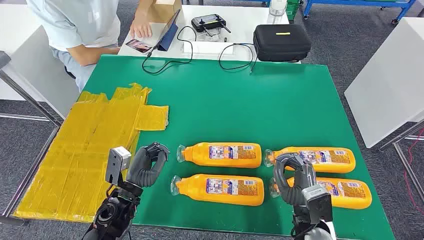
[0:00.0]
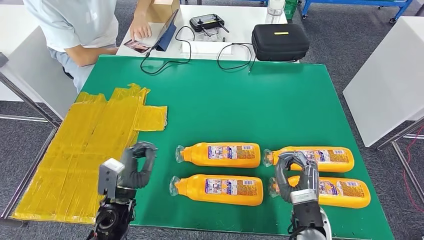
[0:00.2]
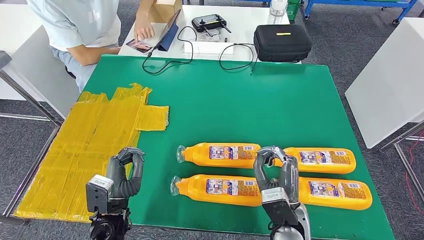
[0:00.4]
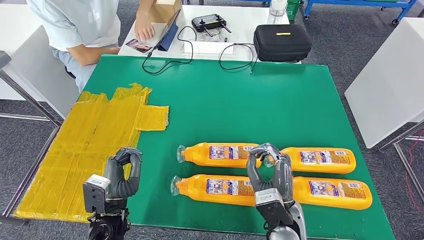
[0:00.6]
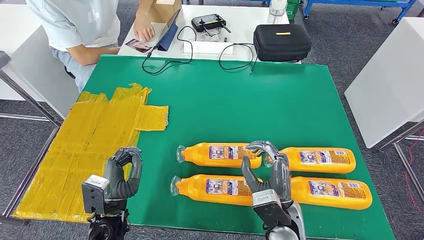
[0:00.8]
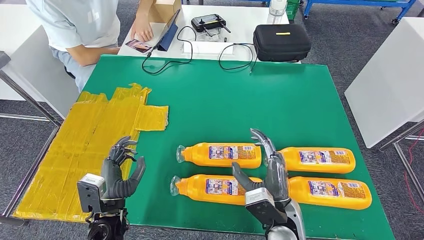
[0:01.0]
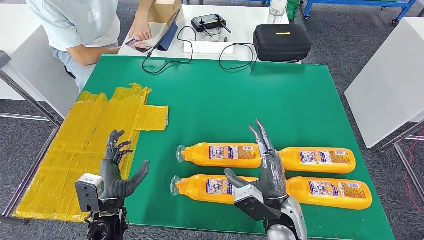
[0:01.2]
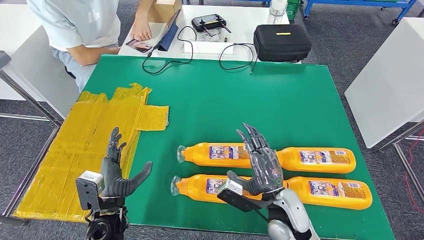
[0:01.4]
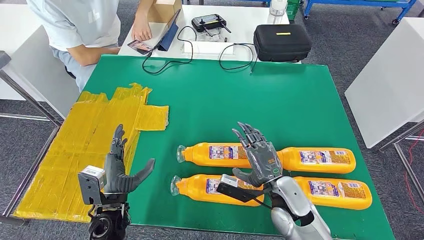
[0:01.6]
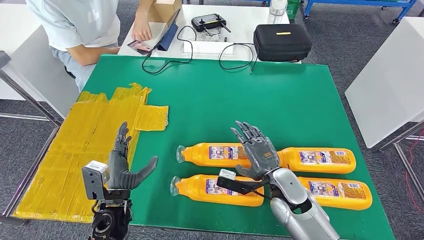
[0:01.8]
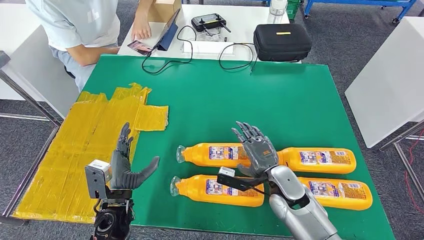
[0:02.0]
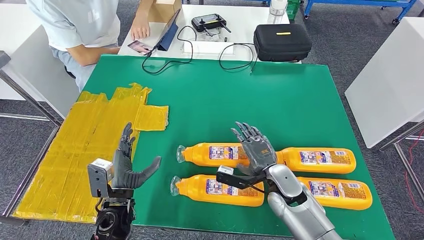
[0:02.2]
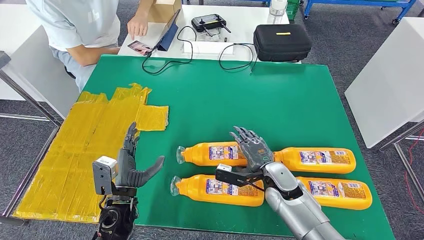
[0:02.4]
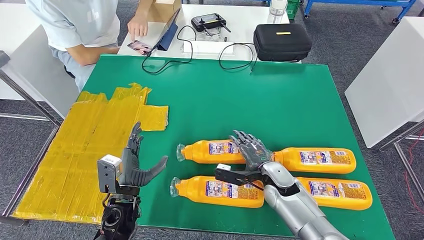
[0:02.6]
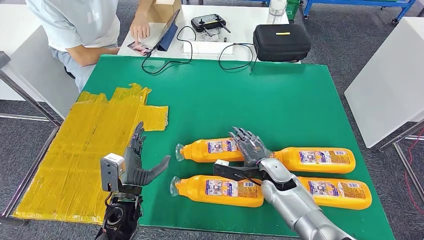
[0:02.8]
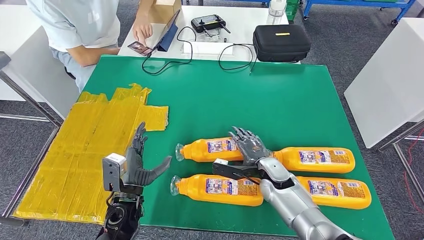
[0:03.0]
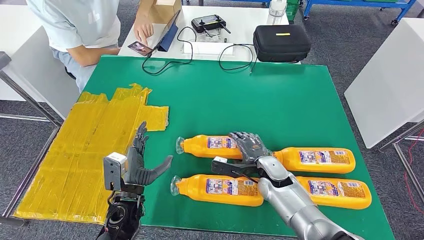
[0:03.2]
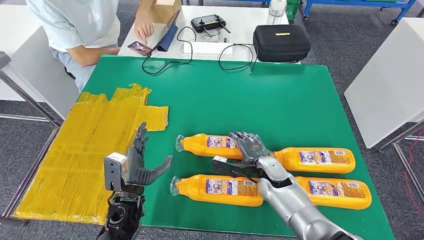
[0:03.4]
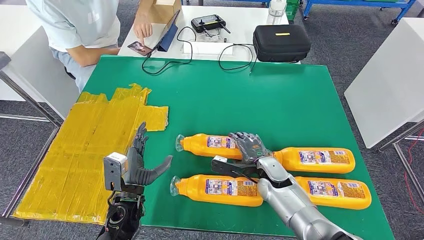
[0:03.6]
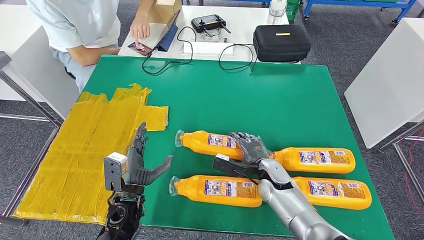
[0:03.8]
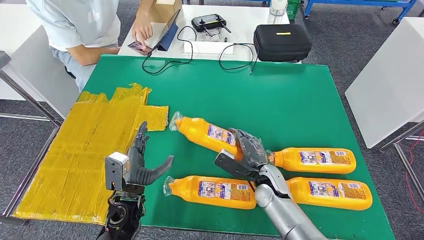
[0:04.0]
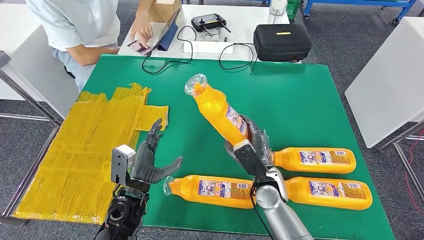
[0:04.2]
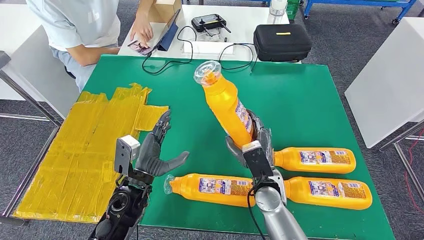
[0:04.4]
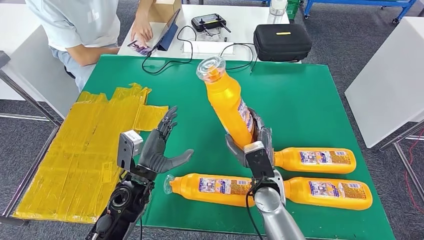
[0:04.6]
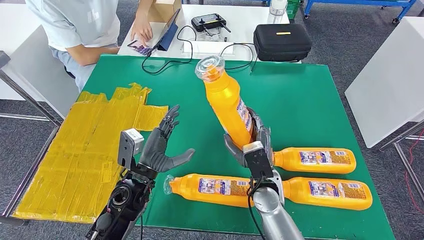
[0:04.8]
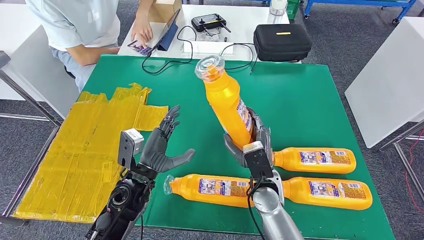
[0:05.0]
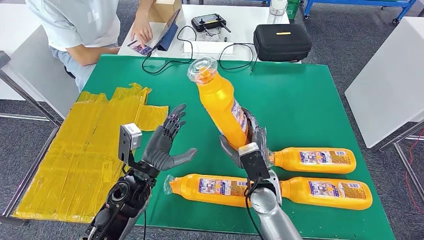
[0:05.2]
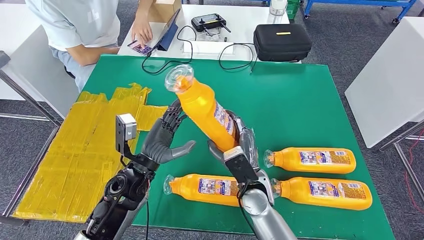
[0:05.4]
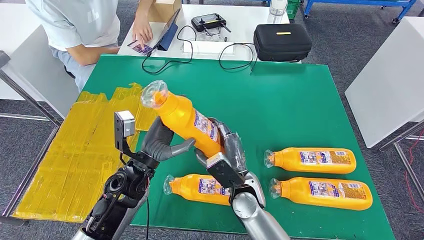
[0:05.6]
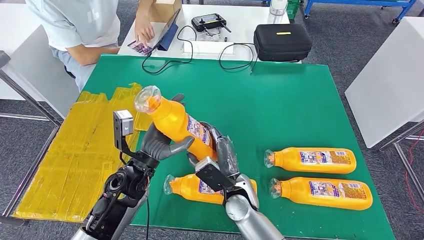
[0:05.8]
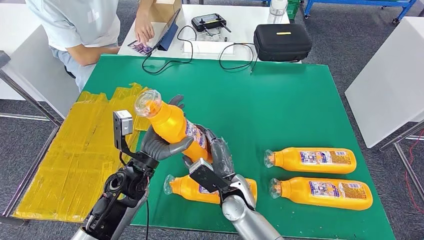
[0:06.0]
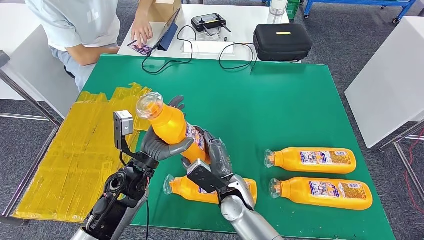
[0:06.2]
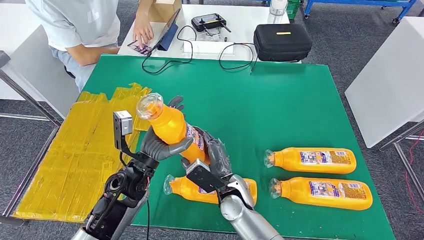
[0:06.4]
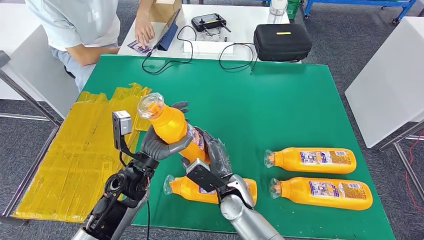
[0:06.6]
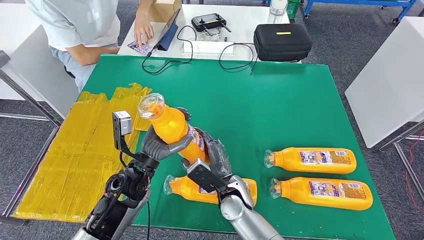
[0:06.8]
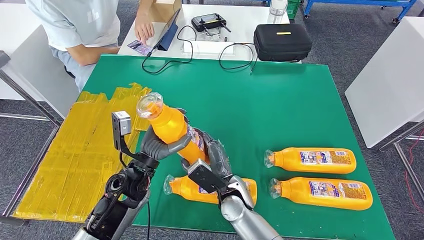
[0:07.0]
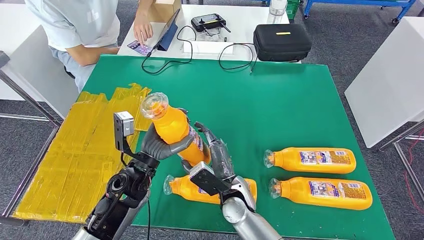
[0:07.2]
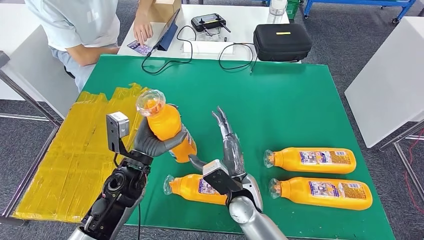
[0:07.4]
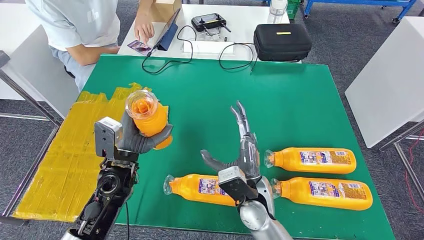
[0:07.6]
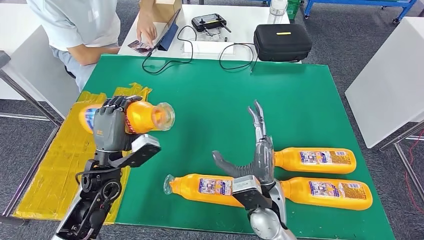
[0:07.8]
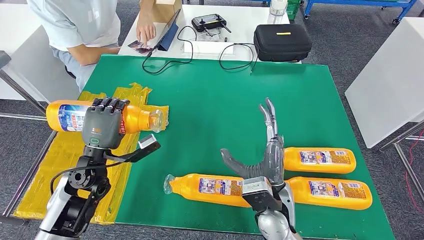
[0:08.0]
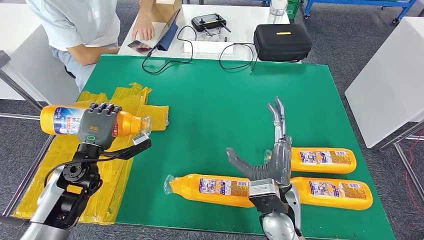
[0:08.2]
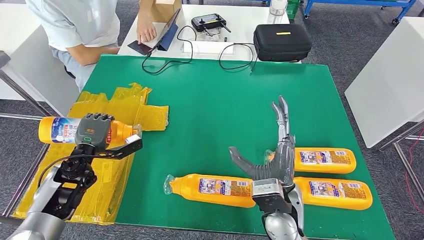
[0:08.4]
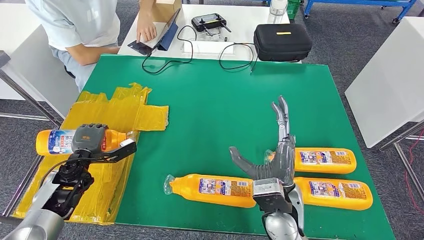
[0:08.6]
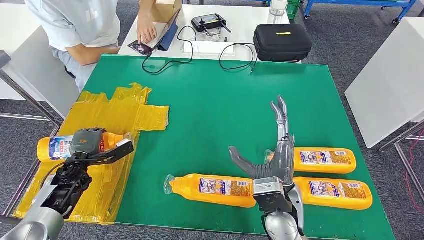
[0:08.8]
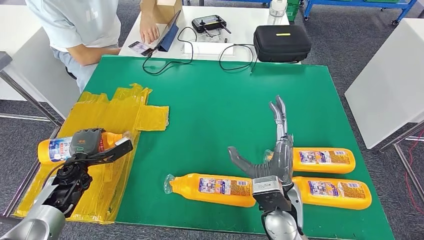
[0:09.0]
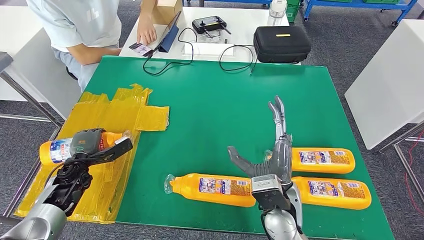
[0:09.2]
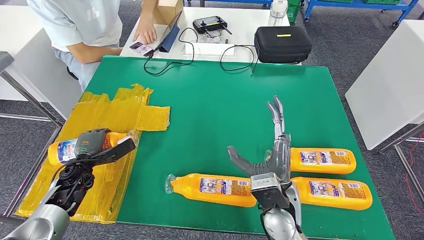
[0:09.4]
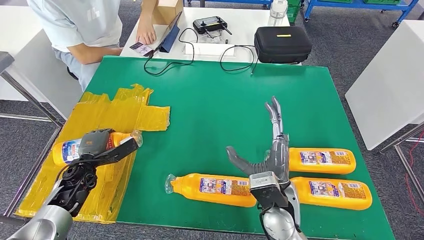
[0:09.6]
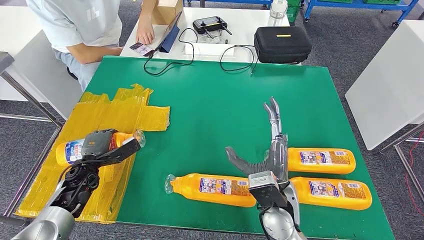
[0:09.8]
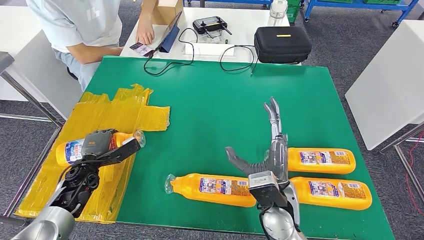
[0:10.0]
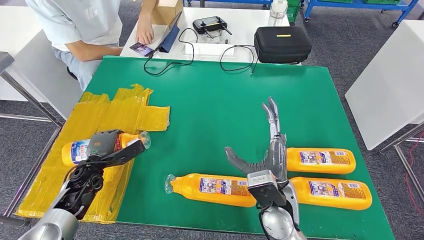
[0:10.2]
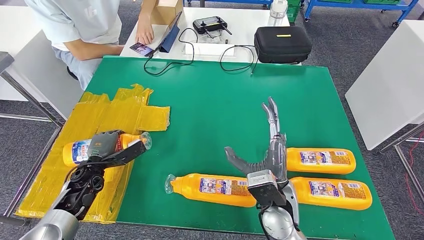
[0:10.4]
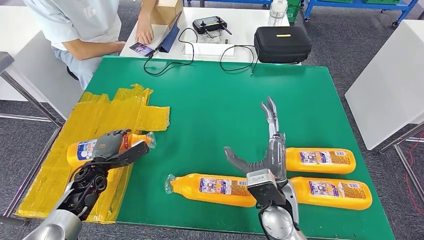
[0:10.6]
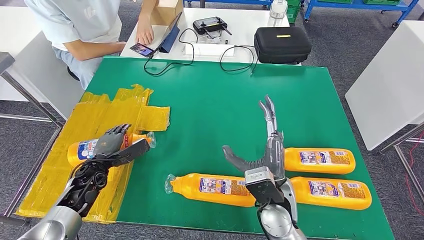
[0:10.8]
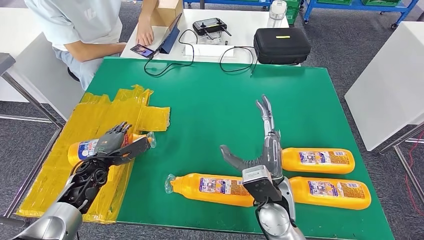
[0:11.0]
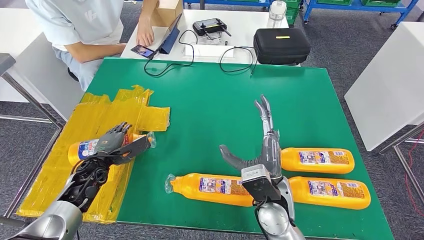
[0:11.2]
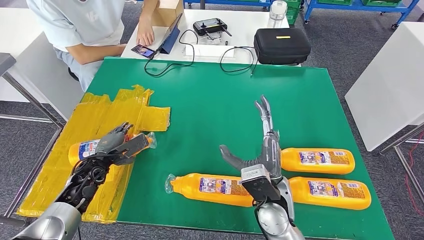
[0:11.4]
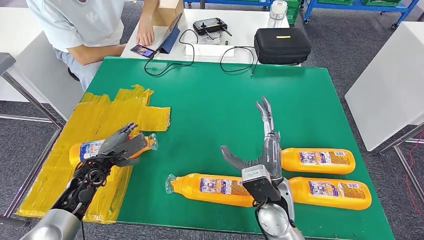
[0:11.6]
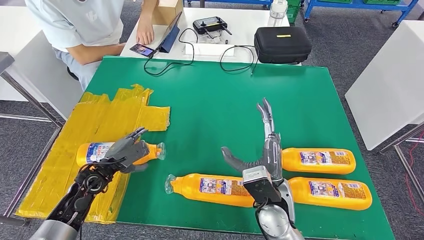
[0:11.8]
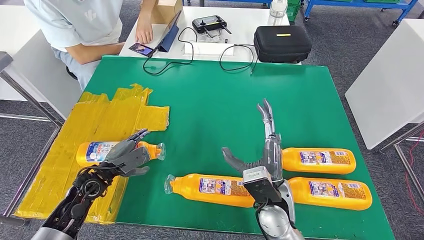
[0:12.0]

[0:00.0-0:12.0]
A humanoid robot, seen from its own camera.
Step, 0.0 to 5.8 s: Take the fast-moving consumer goods bottle from the table.
Step, 6.0 to 9.0 s: Flip the fast-moving consumer goods bottle to the front side.
1.6 to 3.0 s: The right hand goes approximately 10 cm forward and downward.
3.0 to 4.4 s: The right hand changes place by some 10 cm. Meanwhile the left hand changes place by about 5 cm.
4.4 to 6.0 s: The right hand shifts roughly 10 cm to the left.
6.0 to 7.6 s: The right hand changes place by some 5 cm.
9.0 to 10.4 s: The left hand shifts by roughly 5 cm.

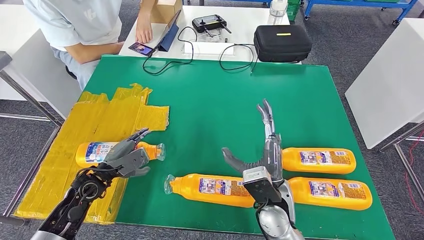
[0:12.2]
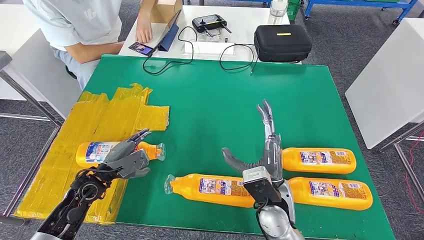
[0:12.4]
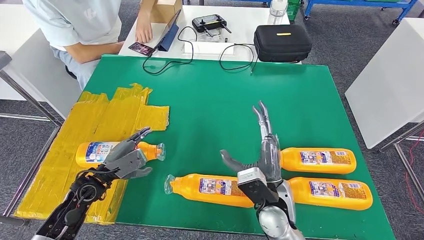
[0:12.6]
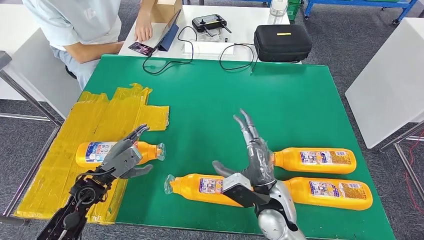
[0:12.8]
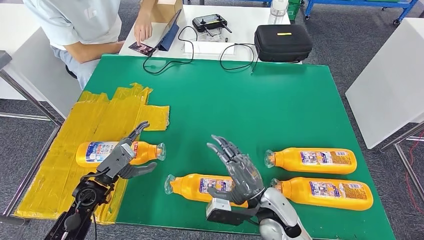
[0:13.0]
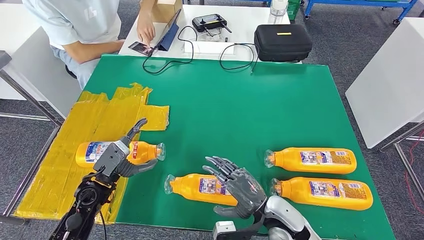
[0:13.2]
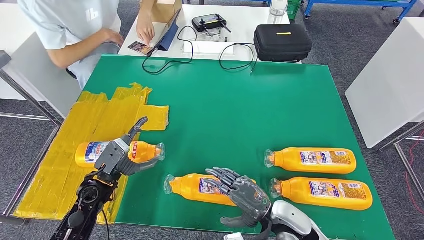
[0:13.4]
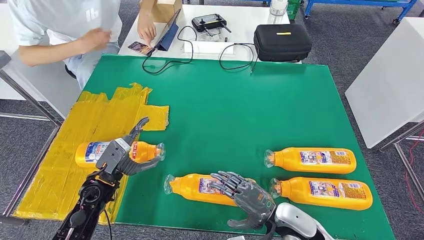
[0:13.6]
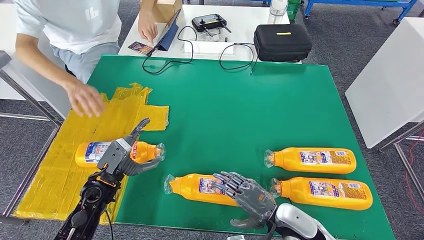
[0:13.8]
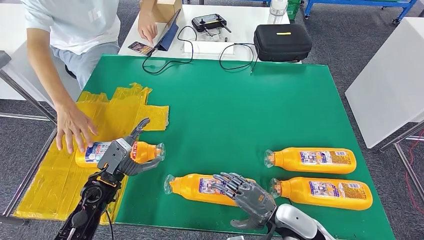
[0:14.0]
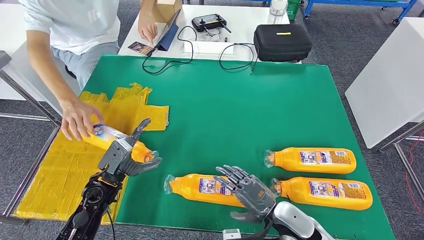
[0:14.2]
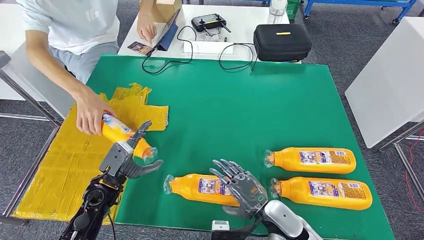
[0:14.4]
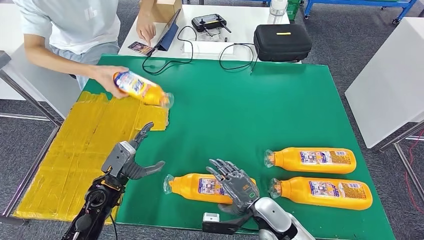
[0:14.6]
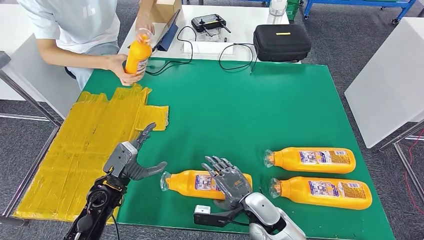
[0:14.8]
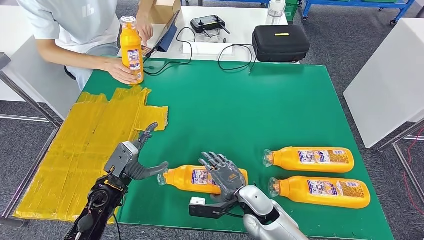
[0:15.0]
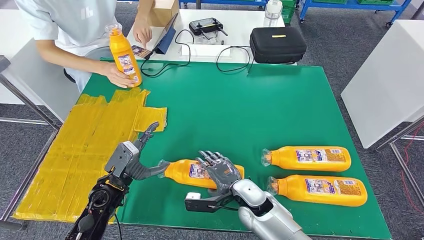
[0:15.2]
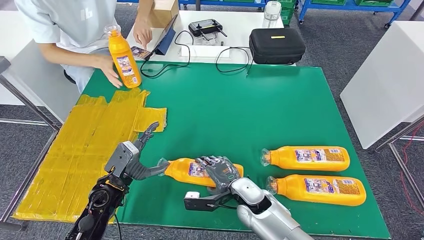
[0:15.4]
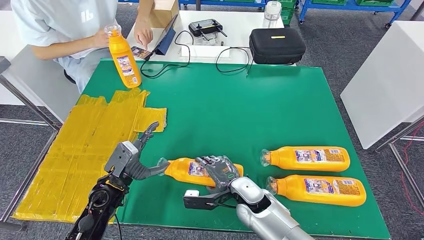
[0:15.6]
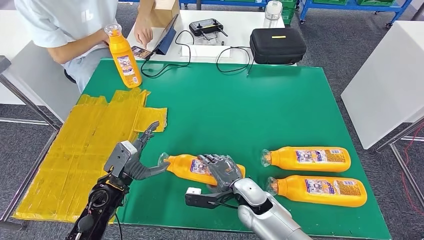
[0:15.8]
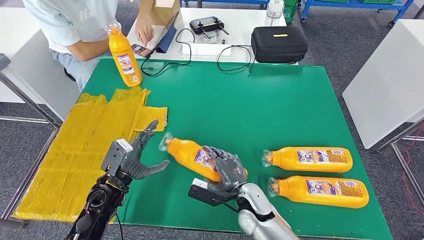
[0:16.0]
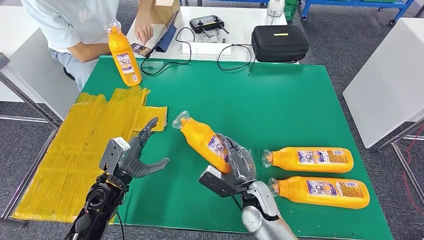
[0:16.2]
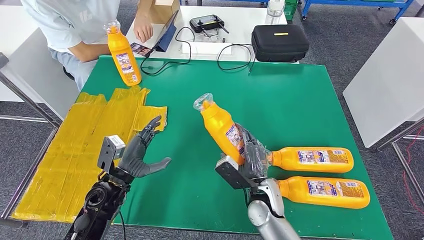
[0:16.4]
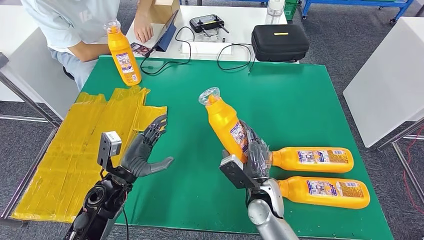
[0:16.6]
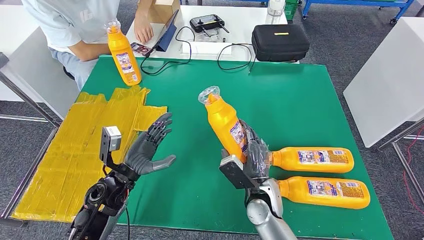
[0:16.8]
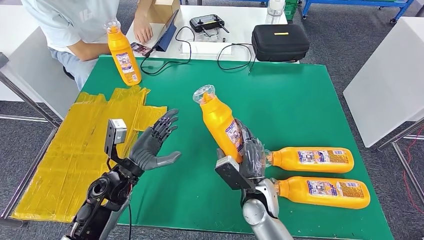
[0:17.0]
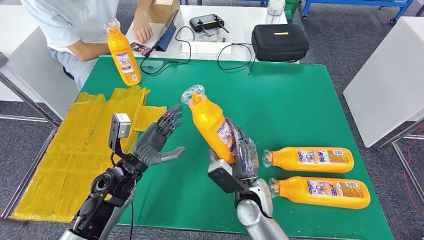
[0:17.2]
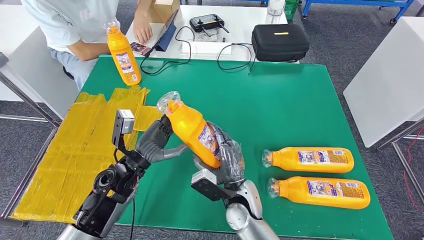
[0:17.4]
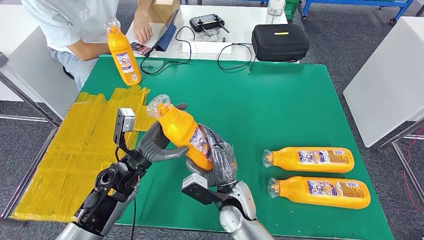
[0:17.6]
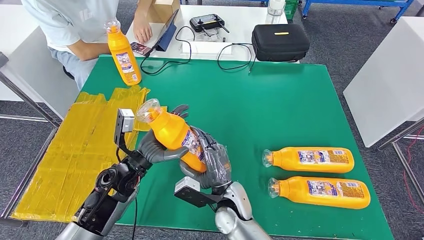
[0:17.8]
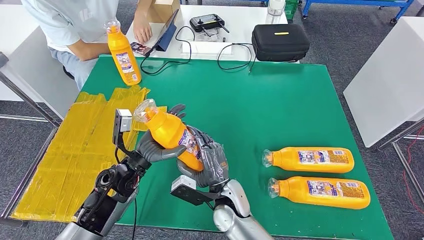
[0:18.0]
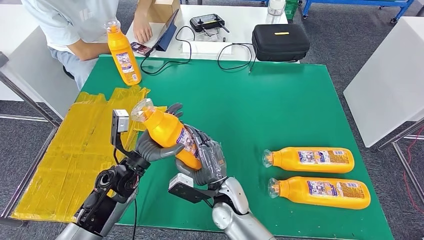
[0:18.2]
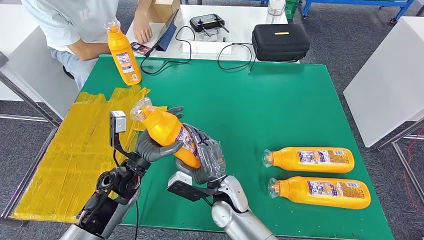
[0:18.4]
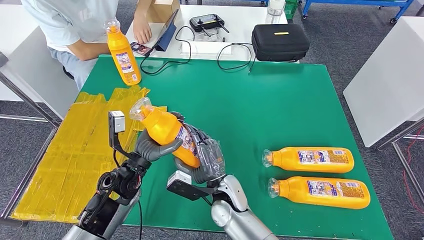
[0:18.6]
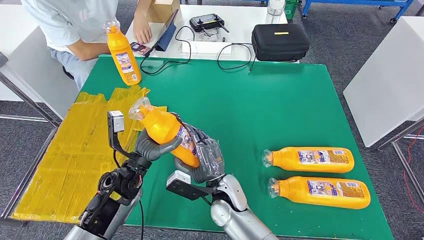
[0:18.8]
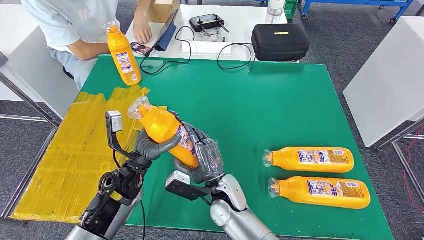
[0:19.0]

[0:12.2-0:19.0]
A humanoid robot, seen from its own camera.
Step, 12.2 to 17.2 s: Pick up the fast-moving consumer goods bottle from the table.
12.2 to 13.6 s: The right hand moves to the right and downward, roughly 10 cm.
16.2 to 17.6 s: The right hand travels to the left by approximately 5 cm. Meanwhile the left hand goes some 5 cm to the right.
17.6 to 19.0 s: The hands stay close to where they were, moving slightly.
